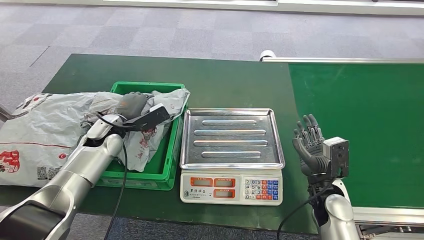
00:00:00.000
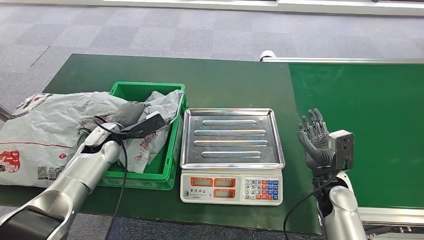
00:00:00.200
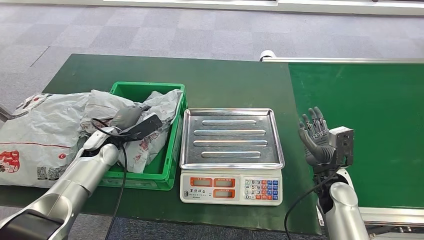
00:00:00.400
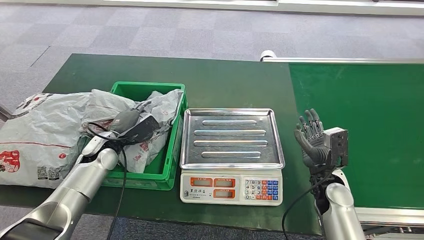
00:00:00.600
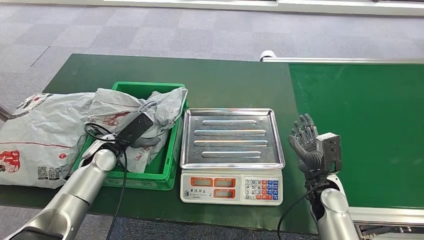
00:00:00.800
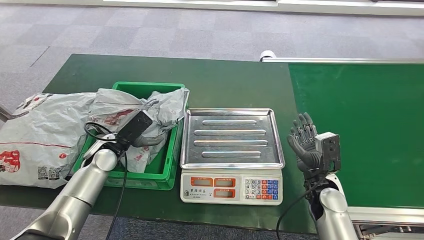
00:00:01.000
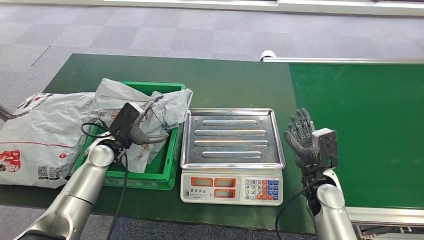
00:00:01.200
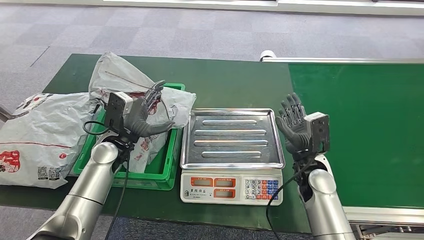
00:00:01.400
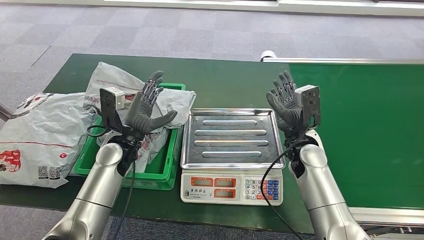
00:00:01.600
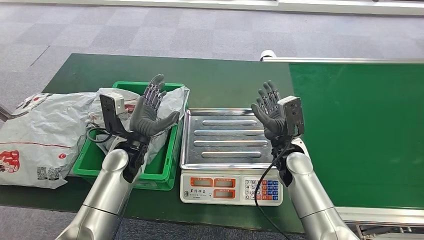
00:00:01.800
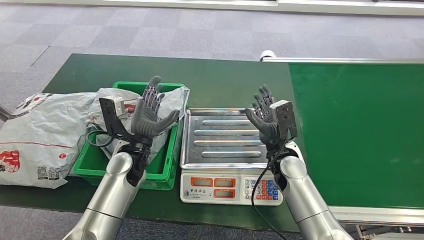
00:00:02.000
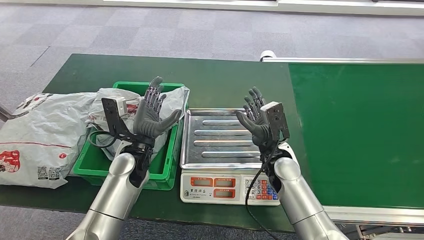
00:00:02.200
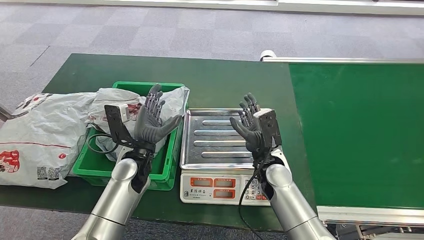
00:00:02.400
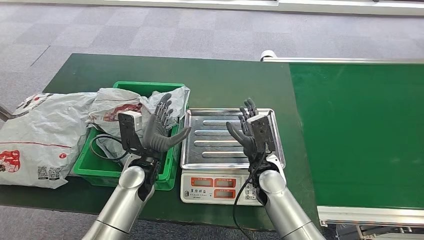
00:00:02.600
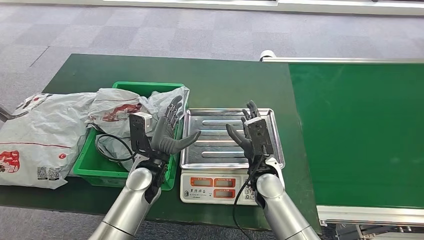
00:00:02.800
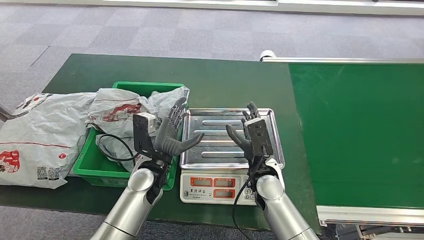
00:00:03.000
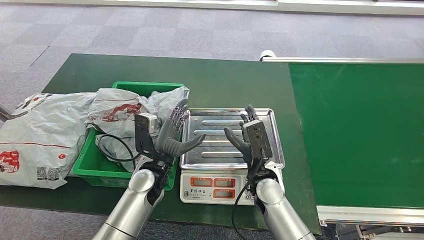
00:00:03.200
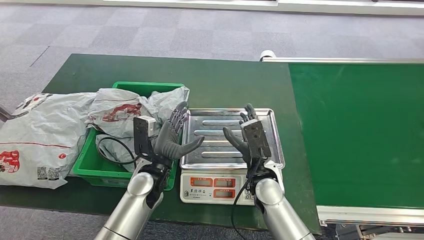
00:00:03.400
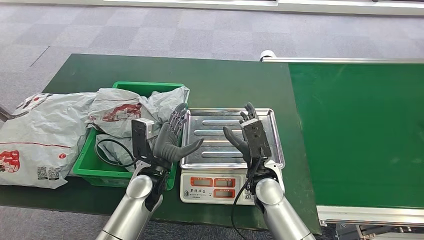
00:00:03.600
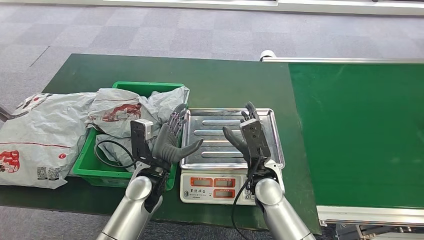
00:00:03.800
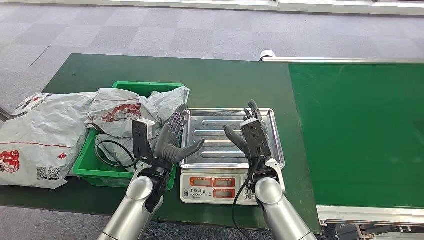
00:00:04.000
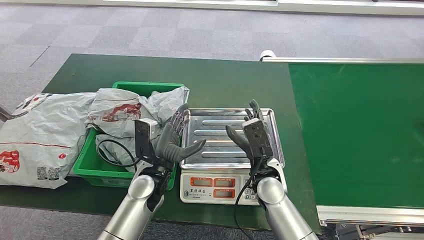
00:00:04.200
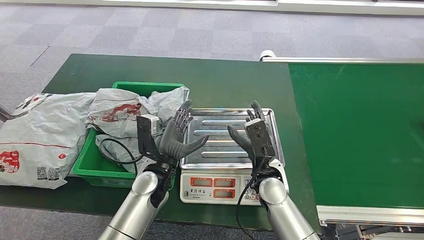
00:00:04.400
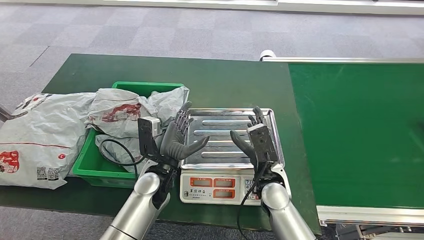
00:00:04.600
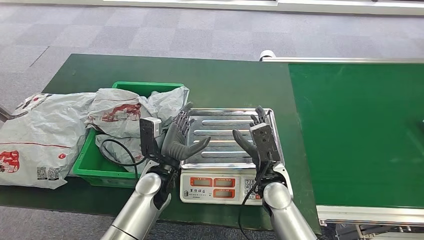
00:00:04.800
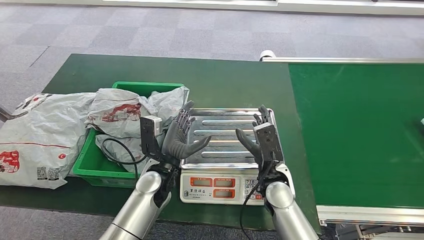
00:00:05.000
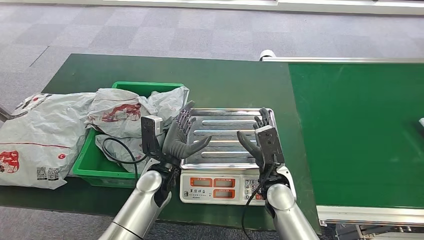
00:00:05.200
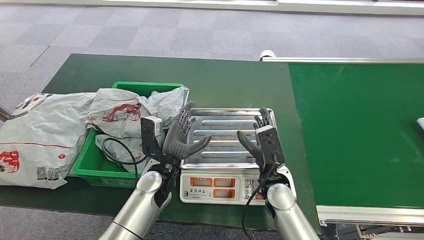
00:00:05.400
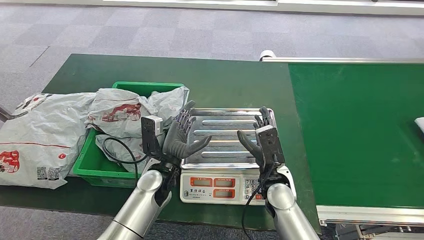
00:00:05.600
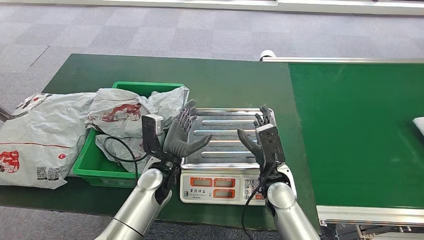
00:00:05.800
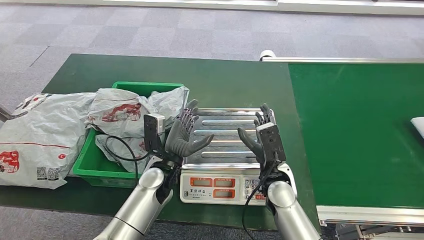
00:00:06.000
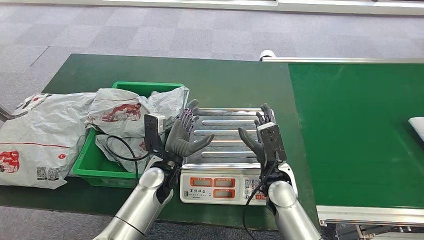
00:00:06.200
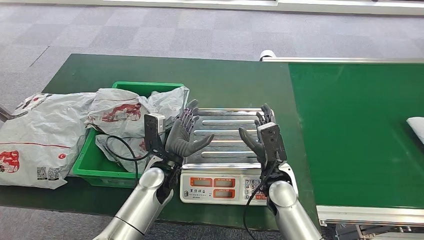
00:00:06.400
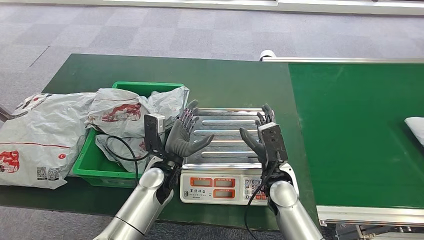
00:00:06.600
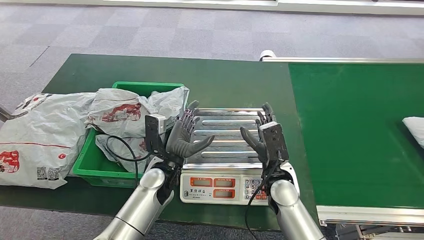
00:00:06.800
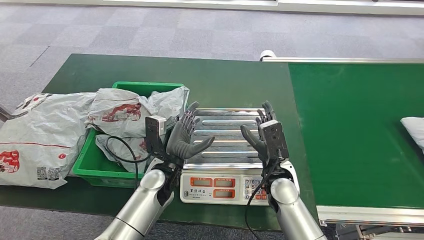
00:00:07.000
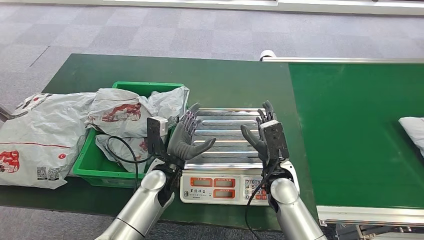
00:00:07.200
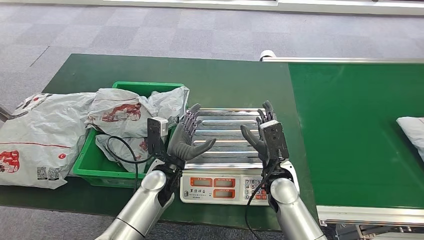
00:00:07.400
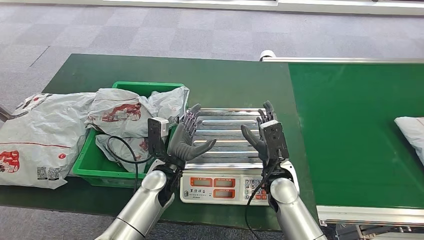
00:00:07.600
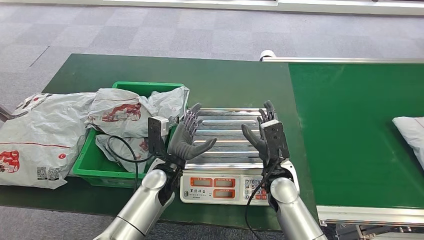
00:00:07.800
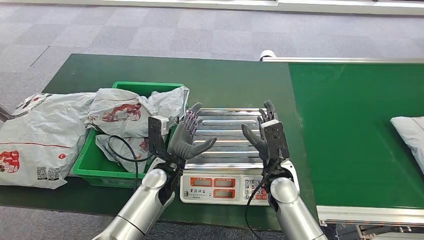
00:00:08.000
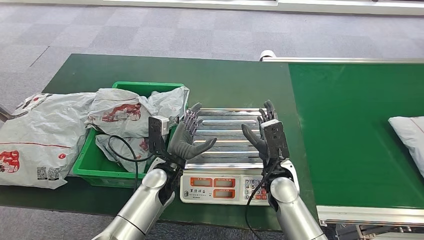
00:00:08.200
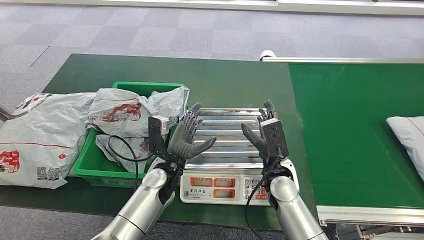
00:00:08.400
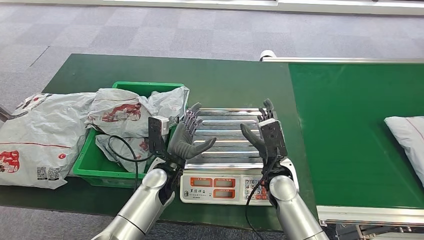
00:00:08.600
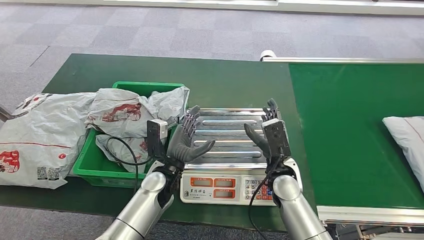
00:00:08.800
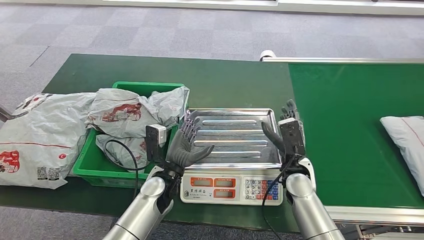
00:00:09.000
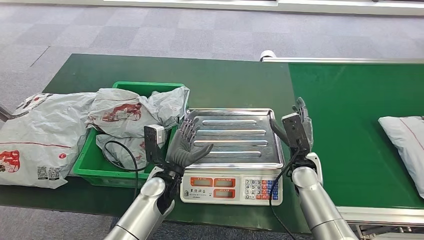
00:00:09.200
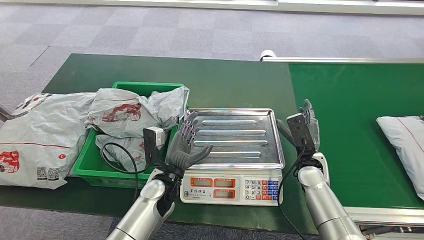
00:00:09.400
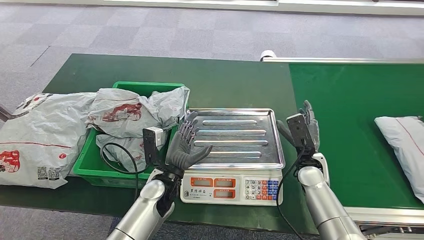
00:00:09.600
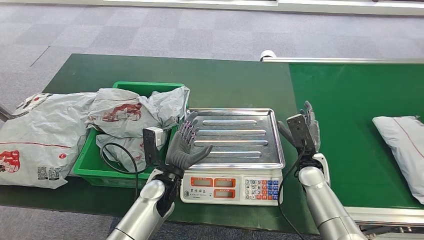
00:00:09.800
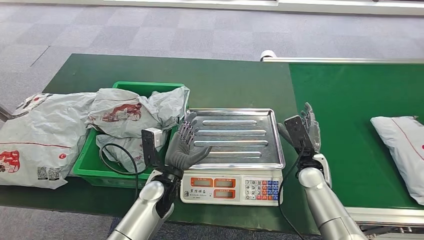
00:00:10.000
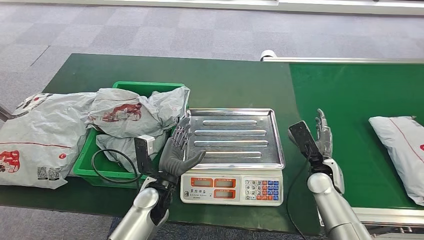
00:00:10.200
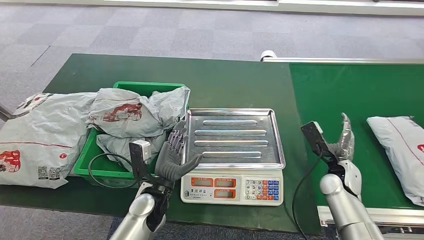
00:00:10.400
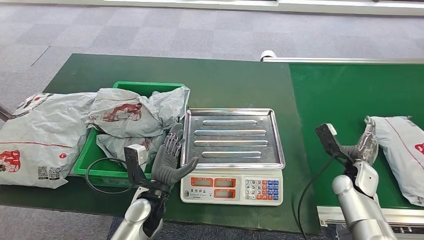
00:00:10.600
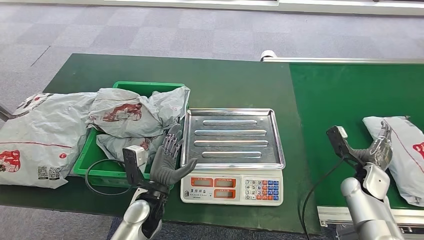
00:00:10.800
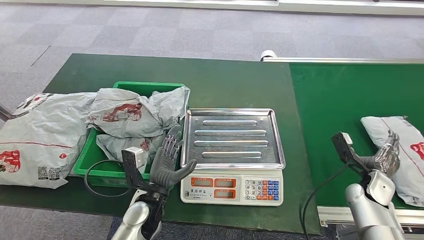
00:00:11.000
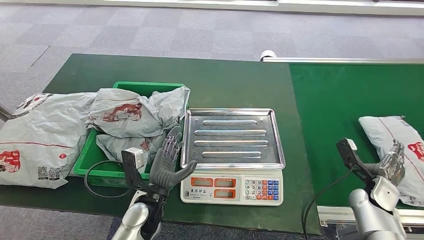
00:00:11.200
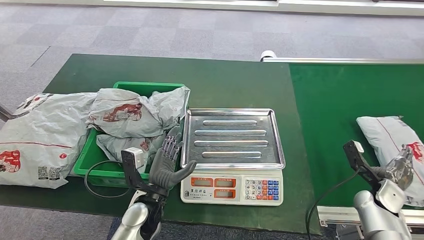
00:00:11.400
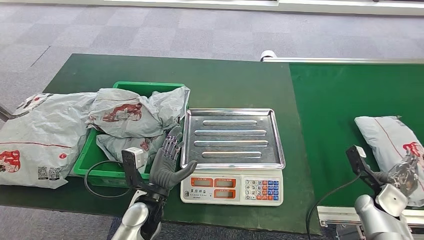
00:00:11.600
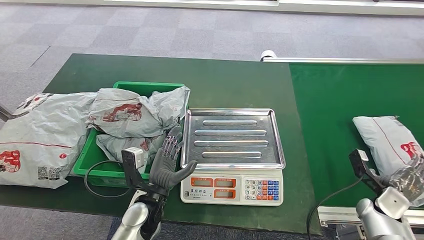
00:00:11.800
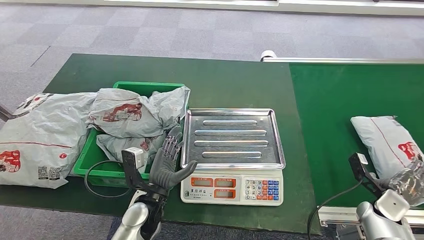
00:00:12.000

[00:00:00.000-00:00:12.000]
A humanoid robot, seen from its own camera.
Step, 00:00:00.200 to 00:00:02.000: Place the parcel into the delivery box.
00:00:03.000 to 00:00:06.000: There are only small adjustments of the hands.
00:00:06.000 to 00:00:07.600: The two hands keep their place.
00:00:07.600 to 00:00:09.000: The right hand shifts roughly 5 cm to the right.
00:00:09.000 to 00:00:10.400: The right hand goes some 15 cm to the right.
00:00:10.400 to 00:00:12.000: The right hand is displaced to the right and backward by roughly 15 cm.

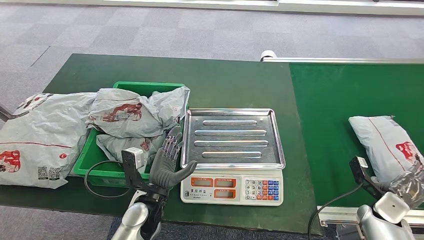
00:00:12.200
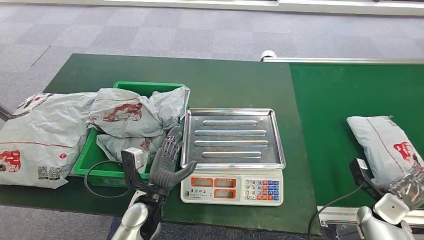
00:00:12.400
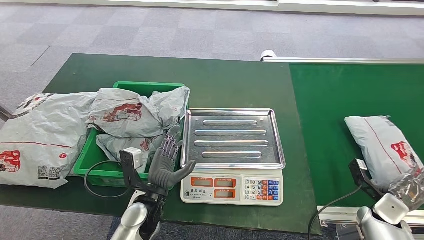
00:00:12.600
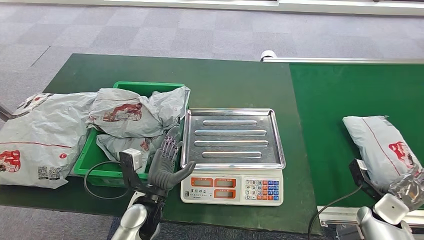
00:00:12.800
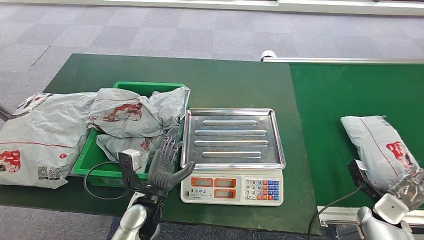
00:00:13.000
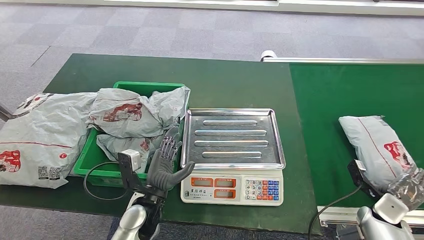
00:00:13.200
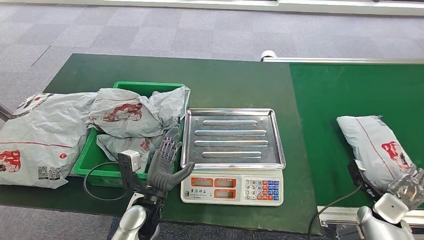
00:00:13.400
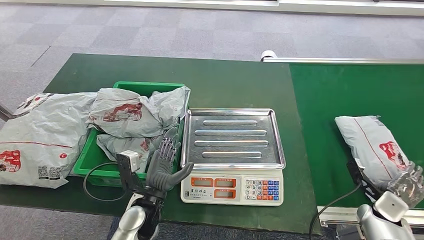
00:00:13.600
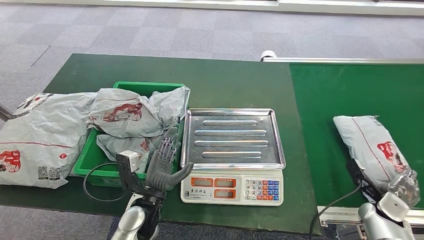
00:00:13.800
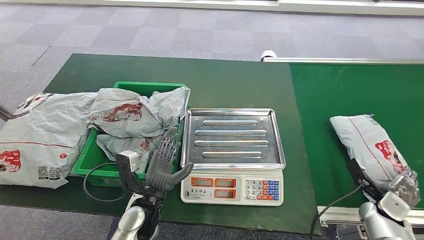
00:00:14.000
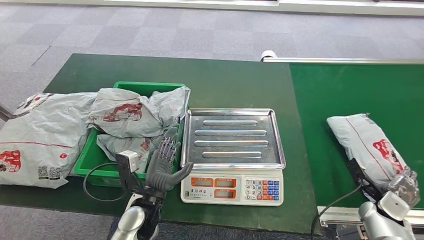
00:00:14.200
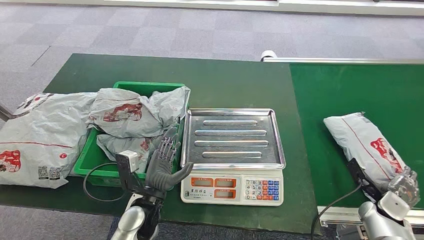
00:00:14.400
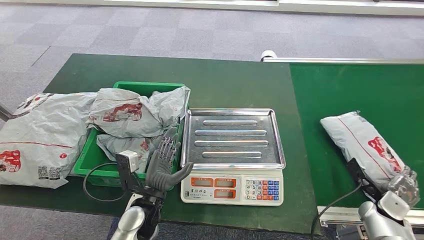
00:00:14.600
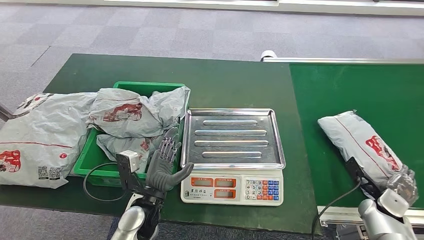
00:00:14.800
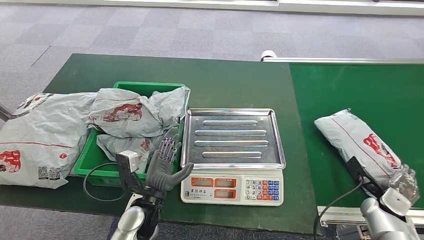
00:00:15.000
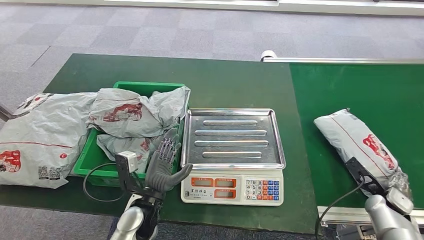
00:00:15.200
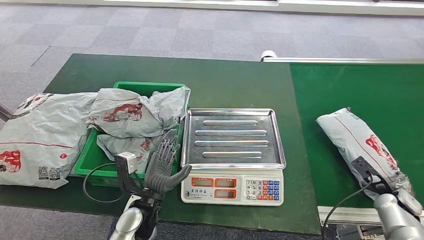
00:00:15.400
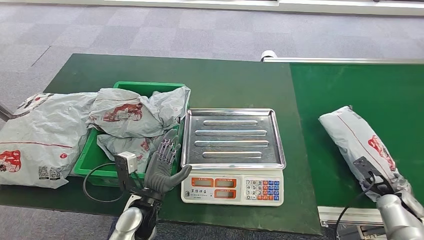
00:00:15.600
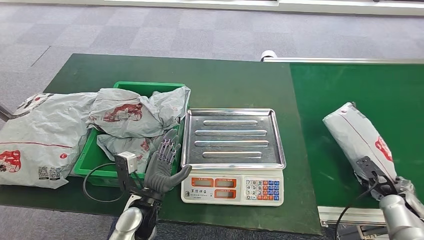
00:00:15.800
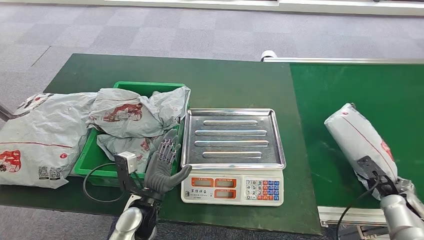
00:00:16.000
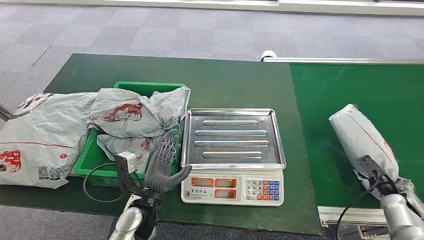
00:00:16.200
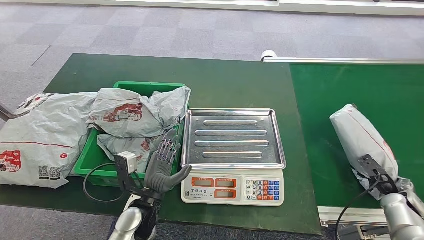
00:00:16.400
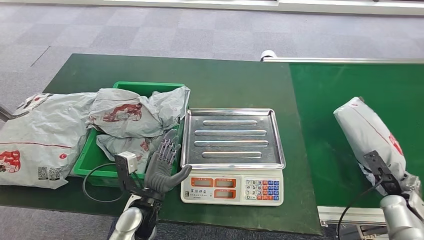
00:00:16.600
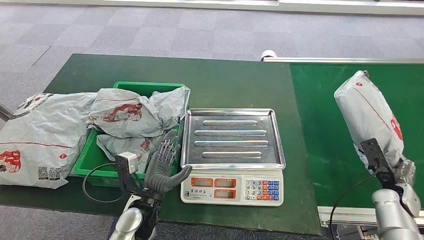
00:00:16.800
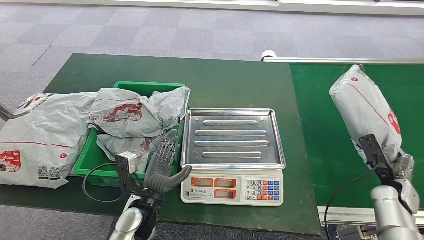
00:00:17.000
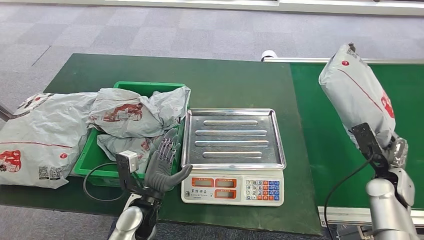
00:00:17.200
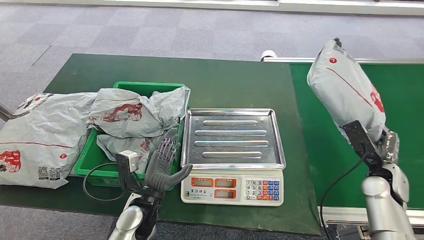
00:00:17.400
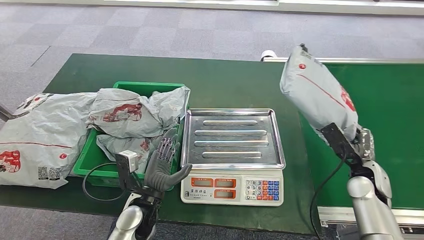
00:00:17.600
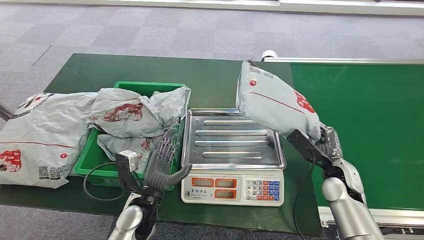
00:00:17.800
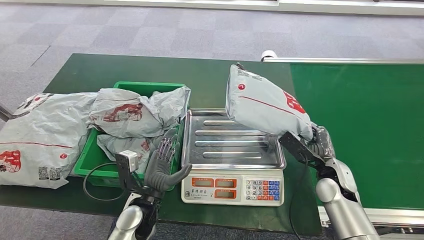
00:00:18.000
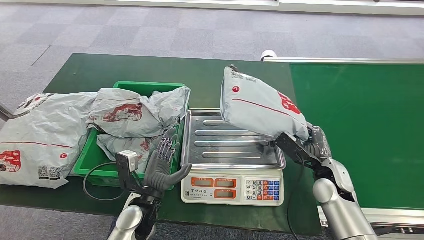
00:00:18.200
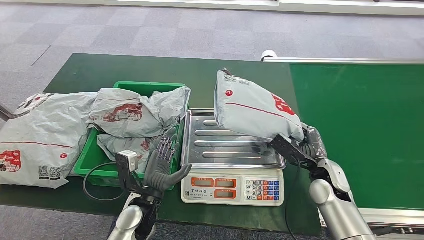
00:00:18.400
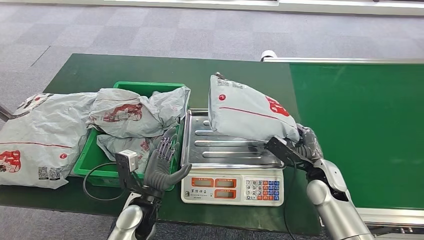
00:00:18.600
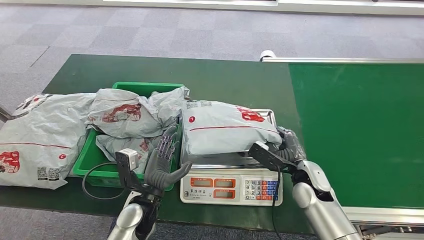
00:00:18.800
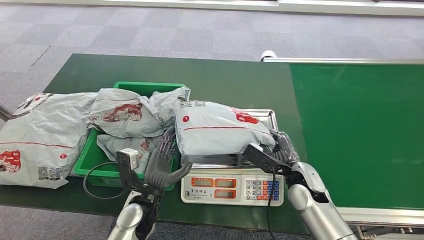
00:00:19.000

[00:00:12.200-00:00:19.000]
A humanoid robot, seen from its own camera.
Step, 00:00:16.000 to 00:00:17.200: Pick up the parcel from the conveyor belt.
00:00:12.200 to 00:00:13.600: Both hands stay put.
00:00:13.600 to 00:00:15.000: There are only small adjustments of the hands.
00:00:16.200 to 00:00:17.600: The right hand is displaced to the left and upward by about 15 cm.
00:00:17.600 to 00:00:19.000: The right hand is displaced to the left by about 15 cm.
